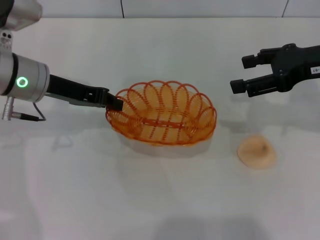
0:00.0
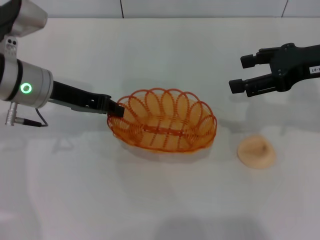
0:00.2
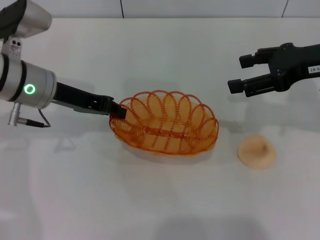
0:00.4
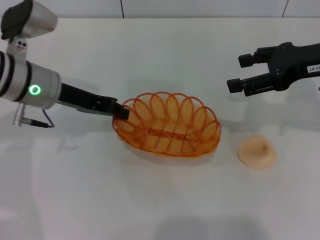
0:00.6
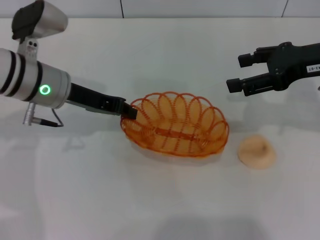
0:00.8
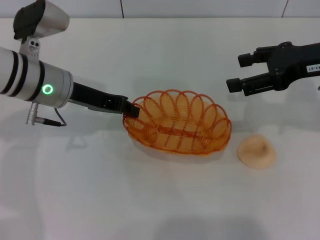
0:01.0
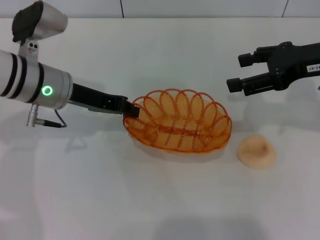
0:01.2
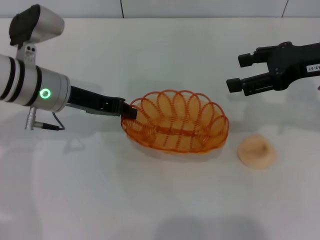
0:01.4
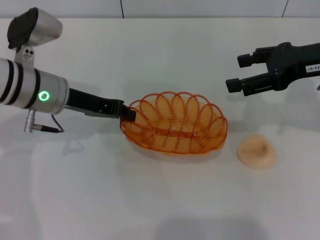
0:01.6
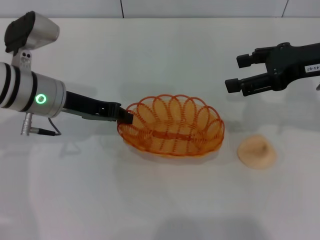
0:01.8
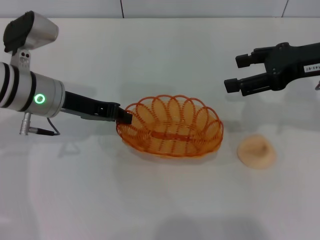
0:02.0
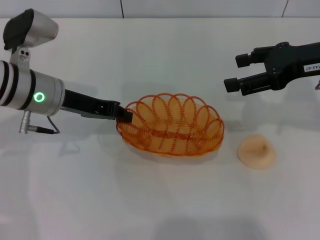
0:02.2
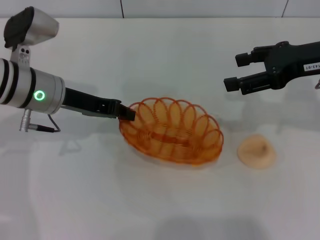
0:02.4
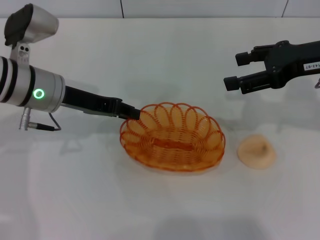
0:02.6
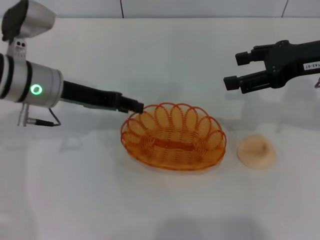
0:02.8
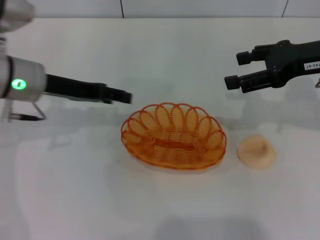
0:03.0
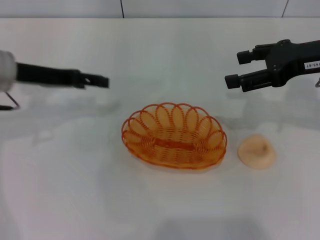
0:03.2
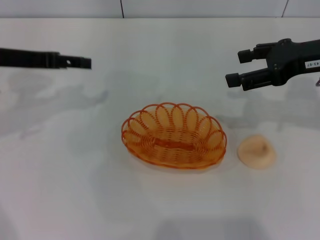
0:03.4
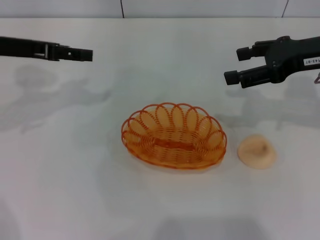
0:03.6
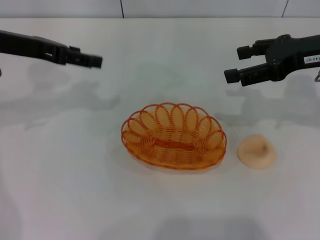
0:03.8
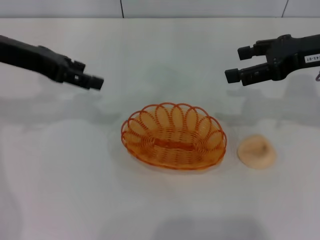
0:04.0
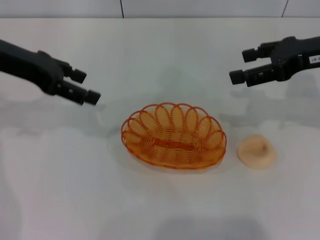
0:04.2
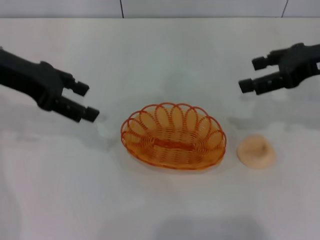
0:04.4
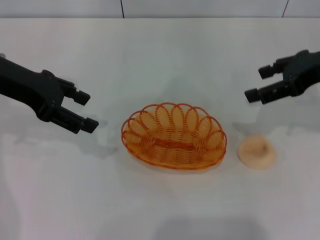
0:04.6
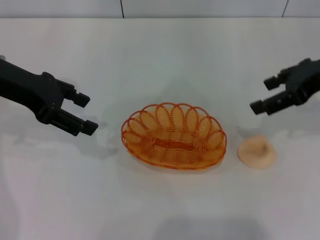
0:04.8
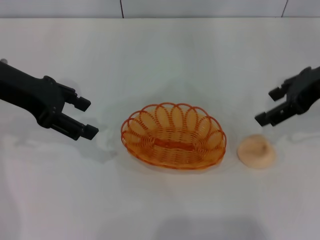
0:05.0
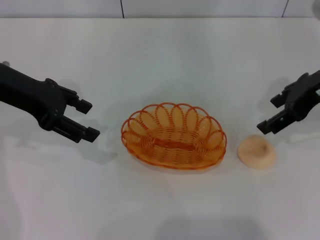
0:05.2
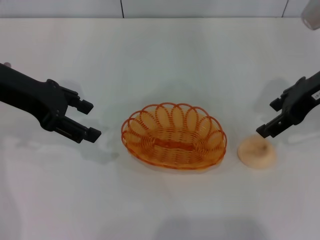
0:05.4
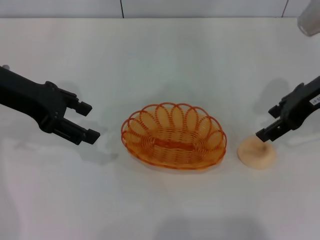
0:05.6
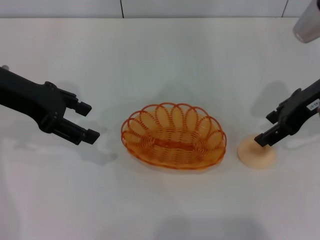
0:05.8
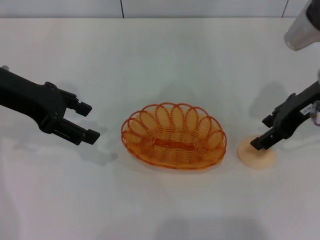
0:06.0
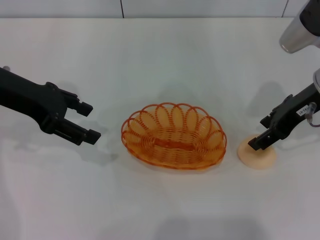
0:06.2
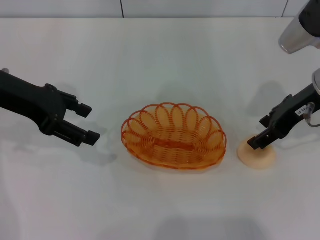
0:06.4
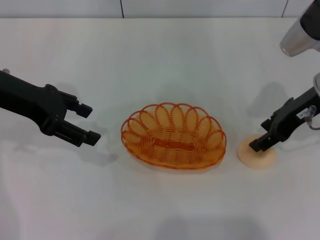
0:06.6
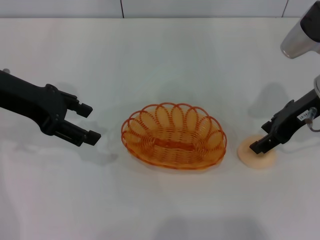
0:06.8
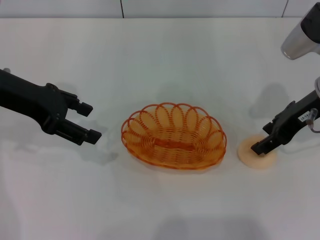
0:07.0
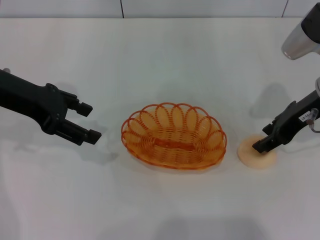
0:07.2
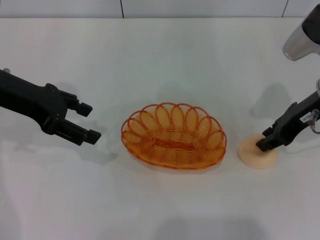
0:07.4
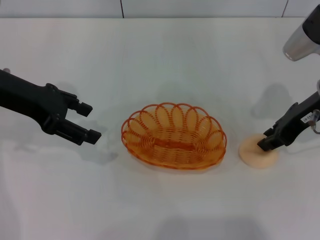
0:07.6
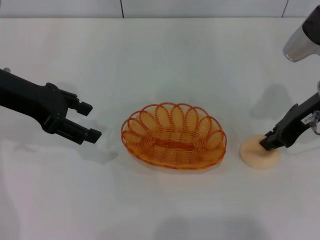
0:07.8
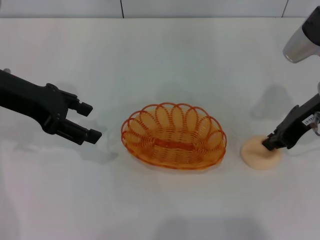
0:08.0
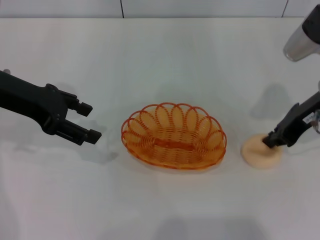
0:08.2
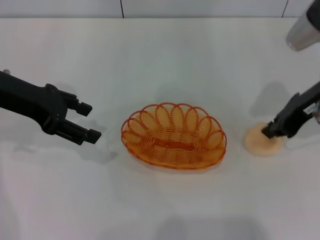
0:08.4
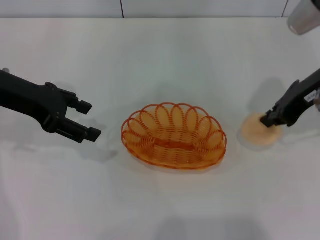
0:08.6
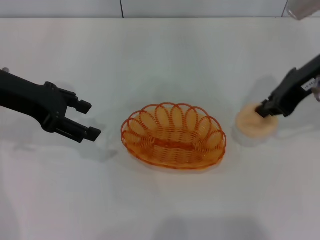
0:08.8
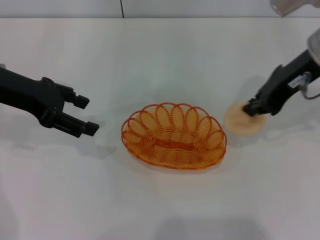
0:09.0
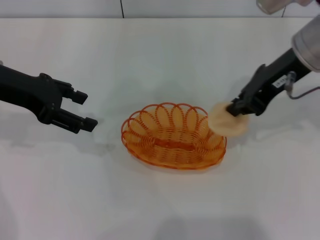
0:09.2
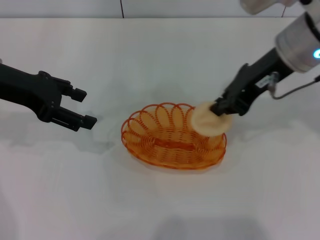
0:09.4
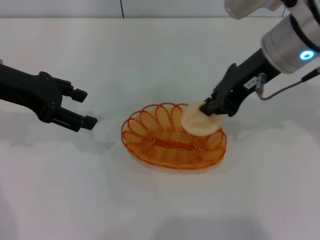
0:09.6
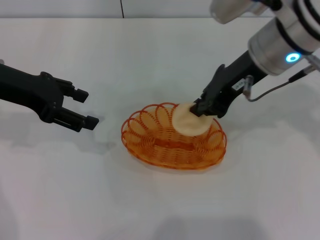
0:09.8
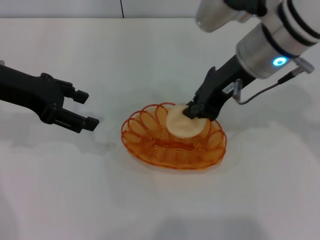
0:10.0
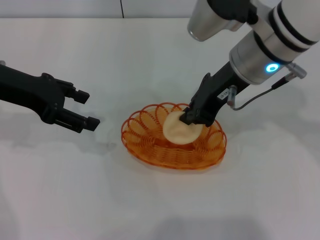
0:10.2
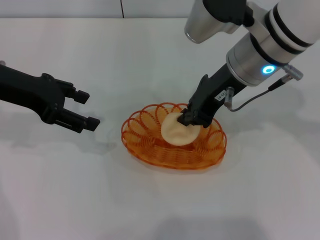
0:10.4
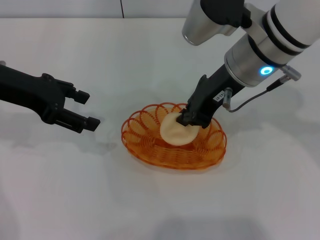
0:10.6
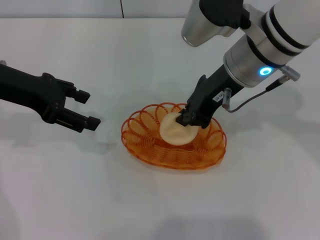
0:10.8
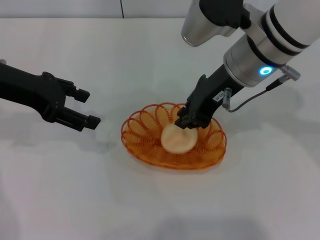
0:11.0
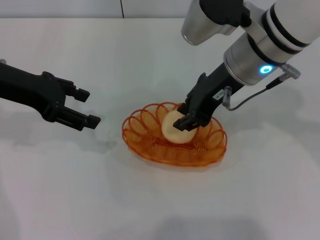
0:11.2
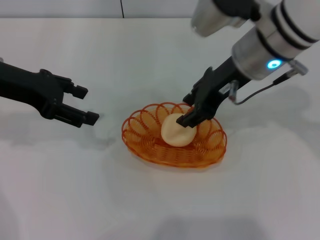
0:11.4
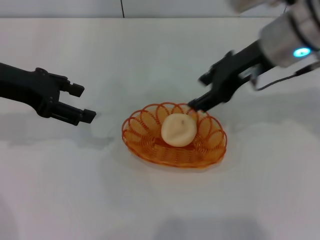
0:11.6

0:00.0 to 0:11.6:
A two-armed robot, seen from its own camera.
Step, 0:00.0 to 0:02.8: Place the basket in the center of view with the left gripper.
Step, 0:03.0 to 0:08.6: Pick up the egg yolk pastry with the right gripper.
Step, 0:08.8 to 0:11.4: Place the egg yolk pastry into the basket with the right gripper.
0:00.0 to 0:01.4: The grippers make only small movements.
0:01.4 to 0:02.8: Both grippers stay put.
0:02.8 to 0:04.4: The left gripper moves upward and to the left, approximately 10 cm, and opens its fingers.
0:05.8 to 0:07.2: There are only small adjustments of the grippers.
0:07.2 to 0:08.8: The right gripper goes some 5 cm upward, and closes up.
0:08.8 to 0:10.2: The right gripper heads to the left, covering about 10 cm.
0:10.2 to 0:11.6: The right gripper ends up roughly 5 cm from where it was, and opens up.

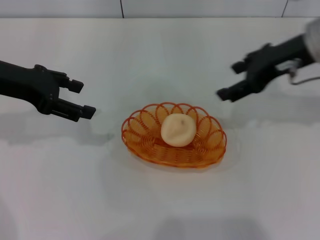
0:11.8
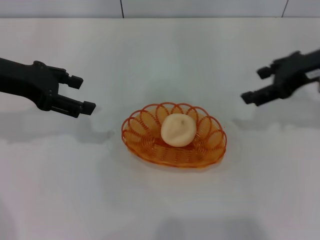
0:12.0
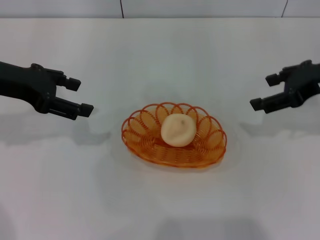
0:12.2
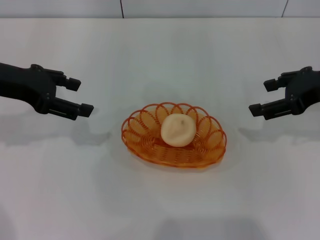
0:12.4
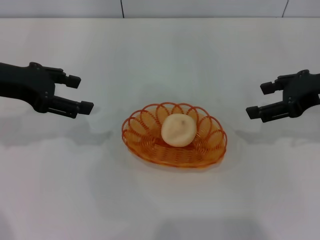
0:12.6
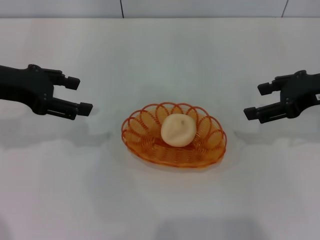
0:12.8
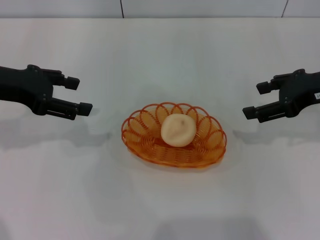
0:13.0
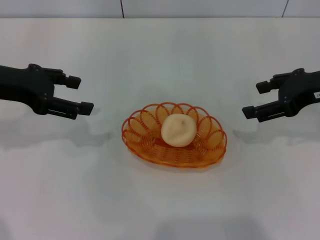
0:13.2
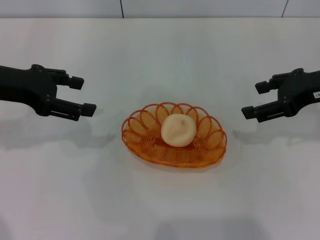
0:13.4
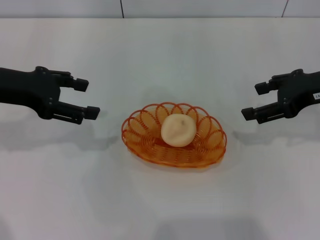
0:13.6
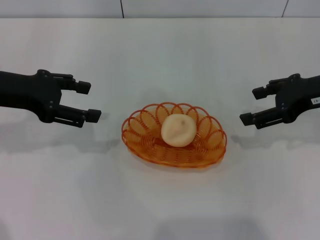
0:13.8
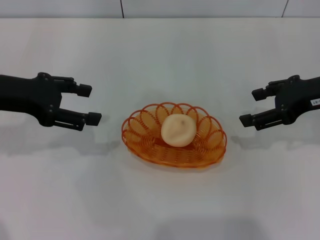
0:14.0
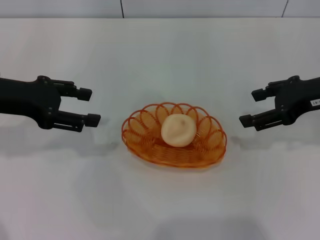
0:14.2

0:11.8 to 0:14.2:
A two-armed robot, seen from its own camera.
0:11.8 to 0:13.0: The right gripper heads to the right, covering approximately 5 cm.
0:13.0 to 0:14.2: There are only small adjustments of the grippers.
